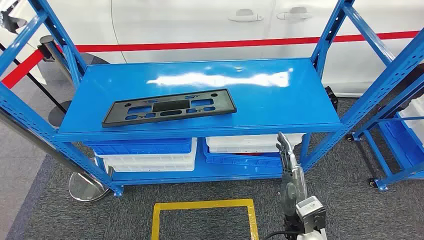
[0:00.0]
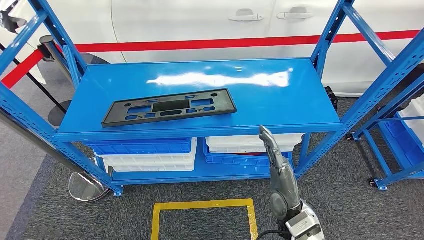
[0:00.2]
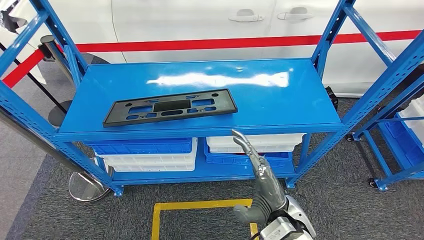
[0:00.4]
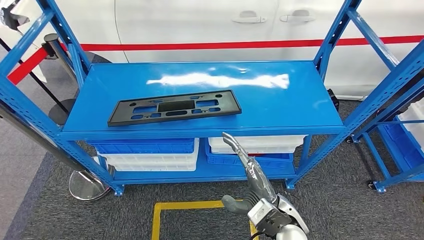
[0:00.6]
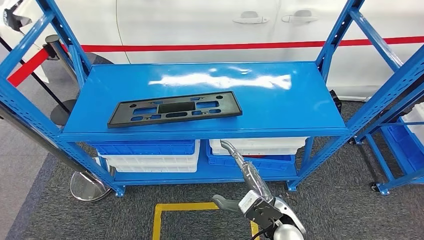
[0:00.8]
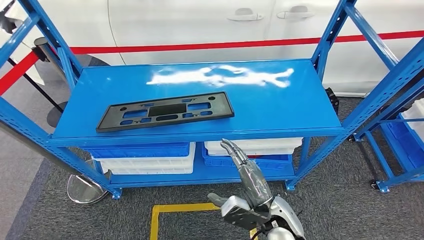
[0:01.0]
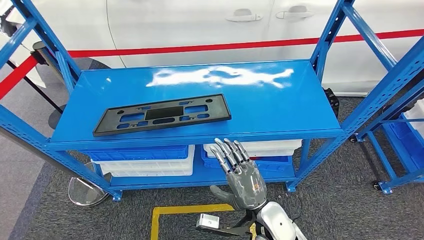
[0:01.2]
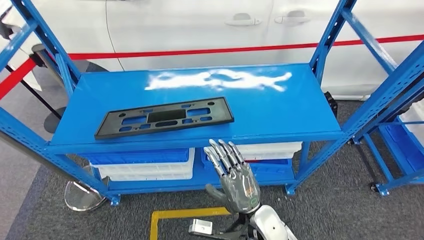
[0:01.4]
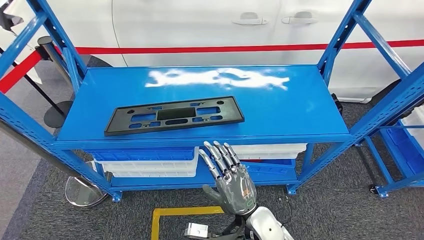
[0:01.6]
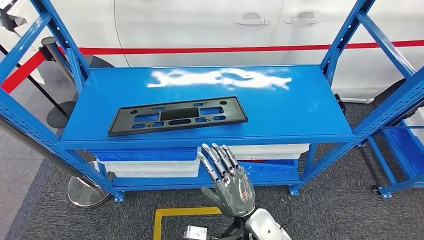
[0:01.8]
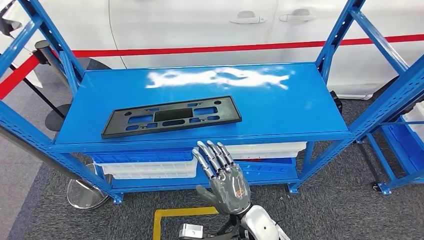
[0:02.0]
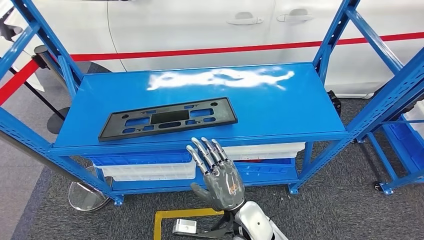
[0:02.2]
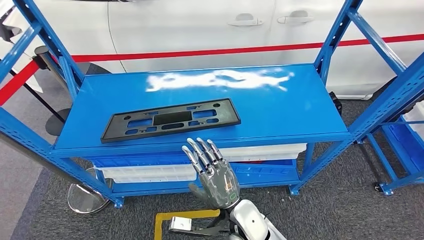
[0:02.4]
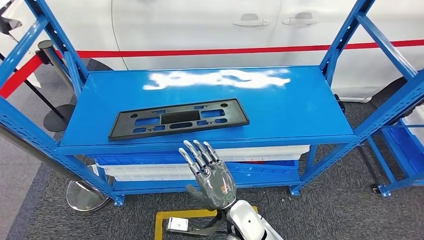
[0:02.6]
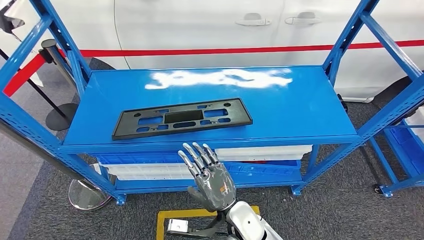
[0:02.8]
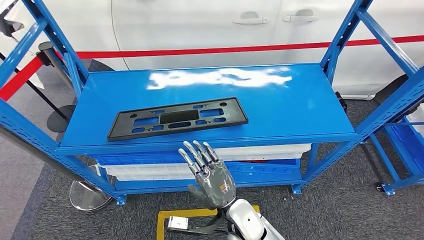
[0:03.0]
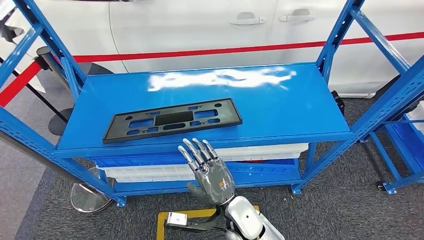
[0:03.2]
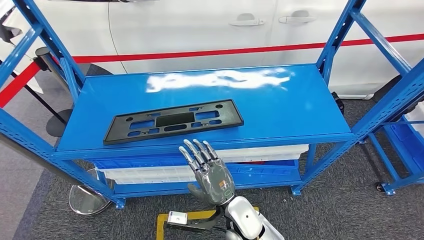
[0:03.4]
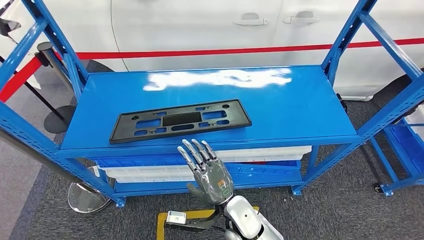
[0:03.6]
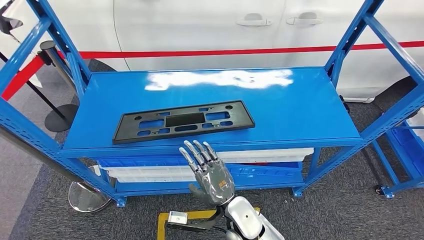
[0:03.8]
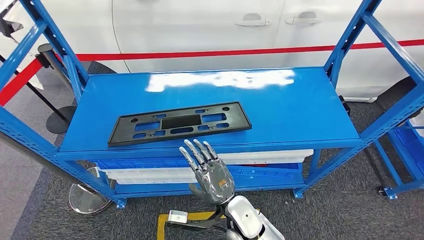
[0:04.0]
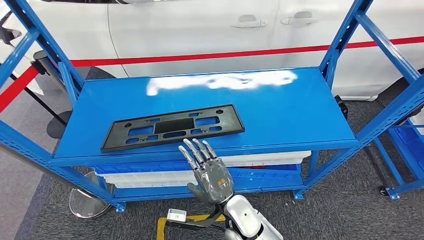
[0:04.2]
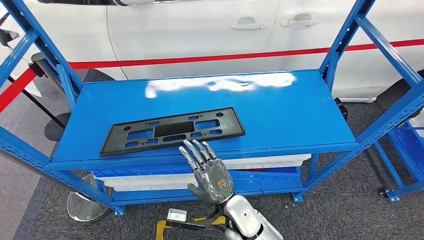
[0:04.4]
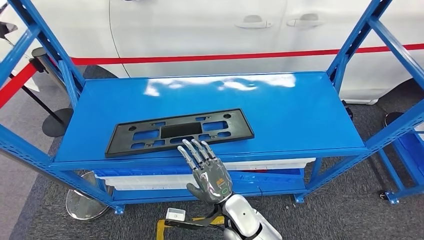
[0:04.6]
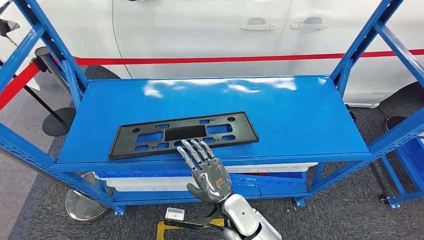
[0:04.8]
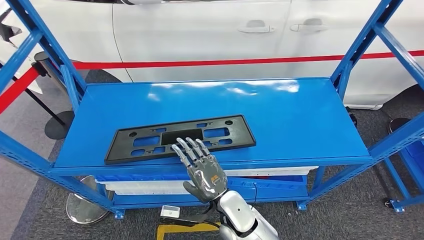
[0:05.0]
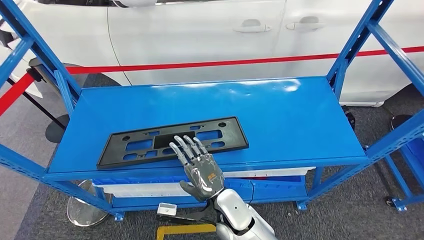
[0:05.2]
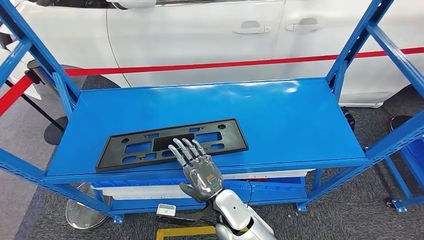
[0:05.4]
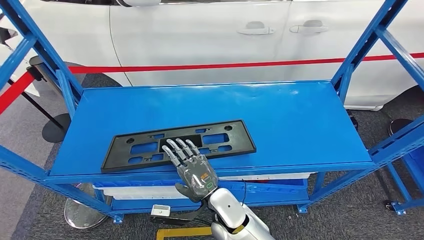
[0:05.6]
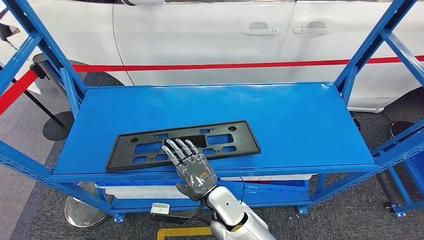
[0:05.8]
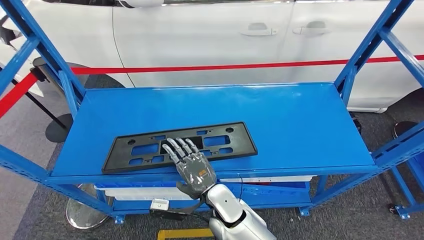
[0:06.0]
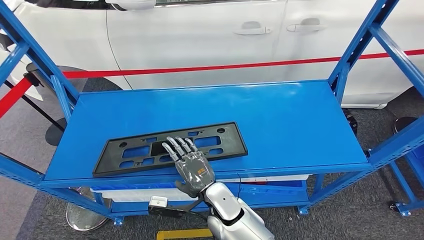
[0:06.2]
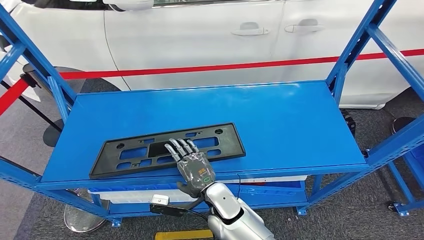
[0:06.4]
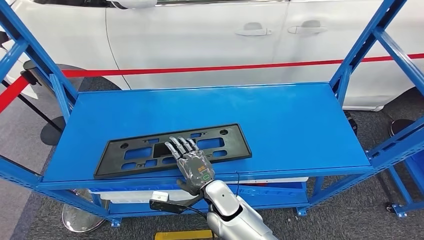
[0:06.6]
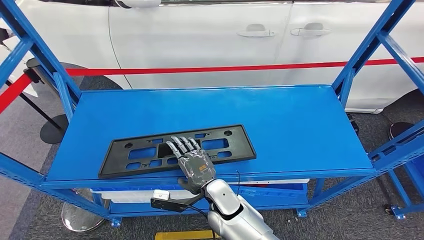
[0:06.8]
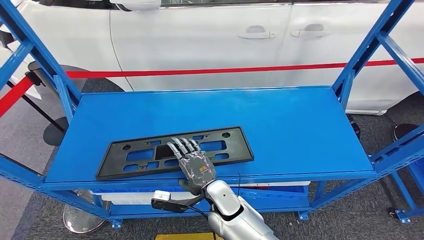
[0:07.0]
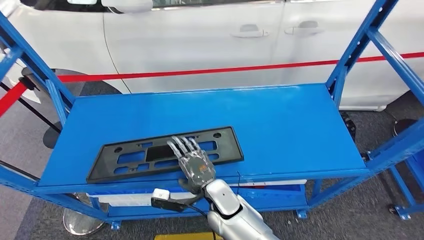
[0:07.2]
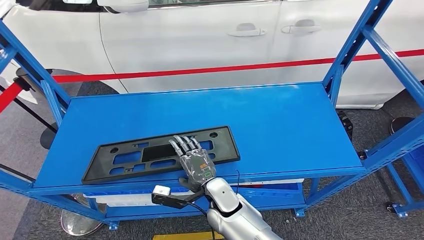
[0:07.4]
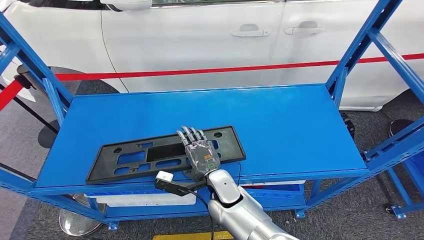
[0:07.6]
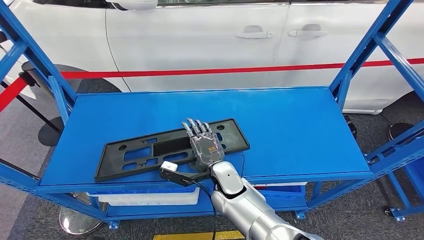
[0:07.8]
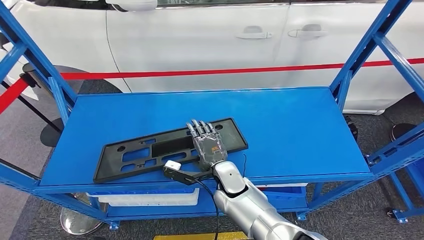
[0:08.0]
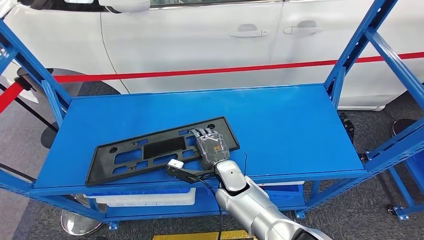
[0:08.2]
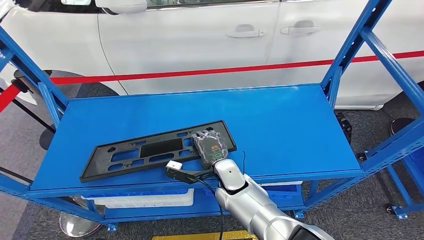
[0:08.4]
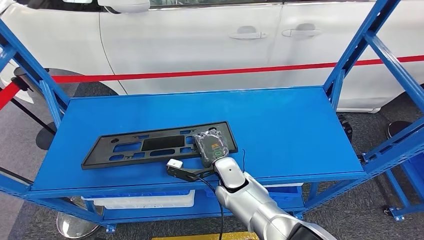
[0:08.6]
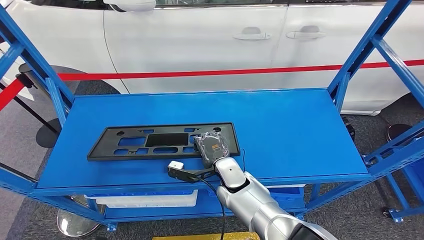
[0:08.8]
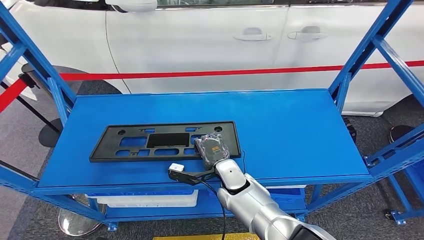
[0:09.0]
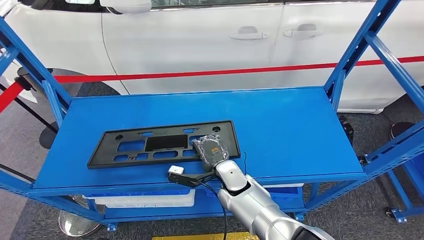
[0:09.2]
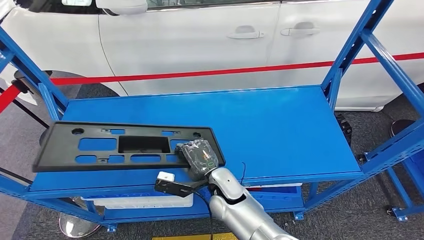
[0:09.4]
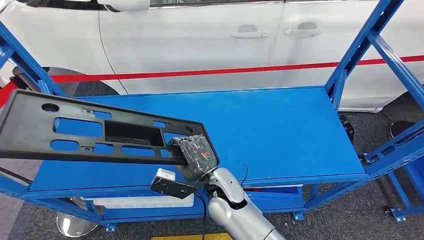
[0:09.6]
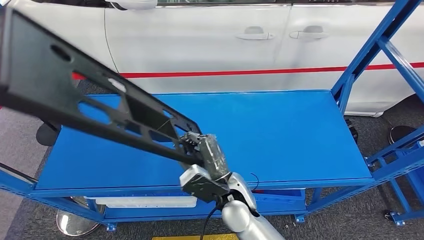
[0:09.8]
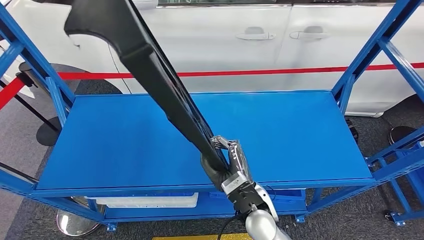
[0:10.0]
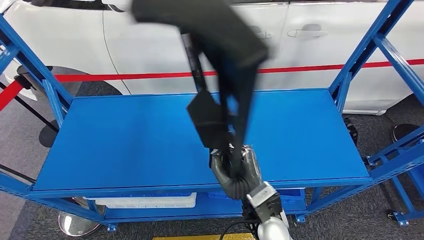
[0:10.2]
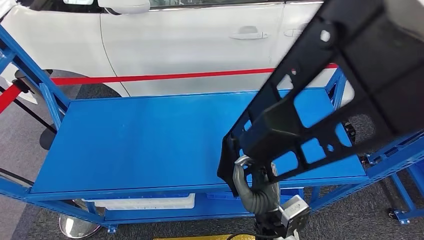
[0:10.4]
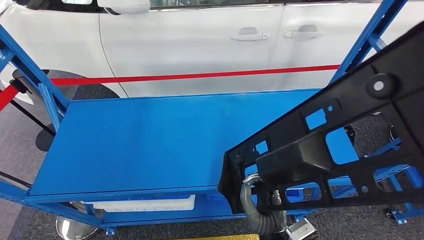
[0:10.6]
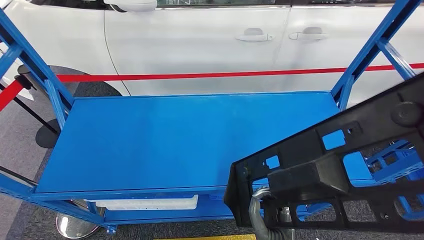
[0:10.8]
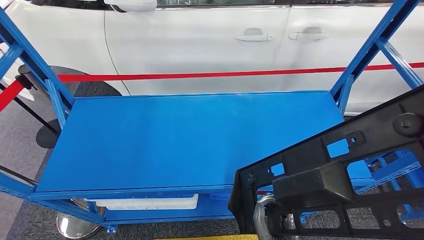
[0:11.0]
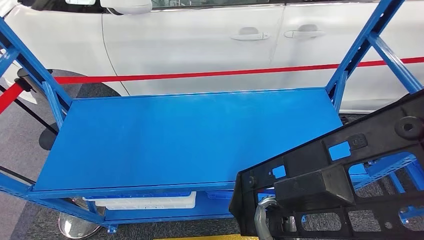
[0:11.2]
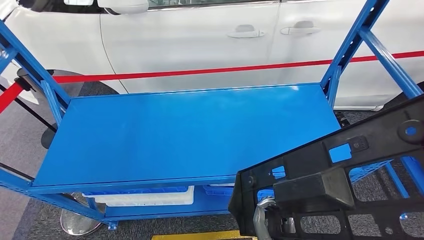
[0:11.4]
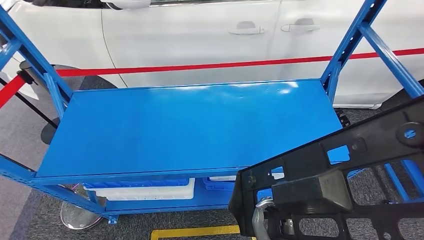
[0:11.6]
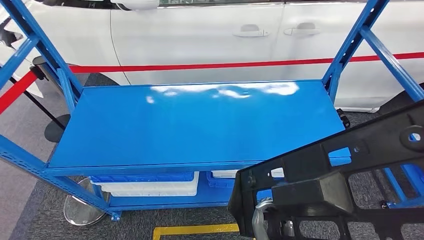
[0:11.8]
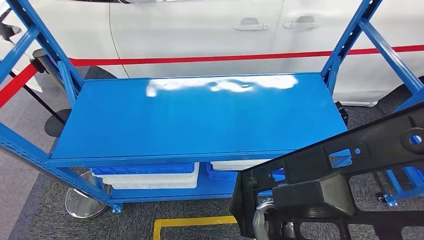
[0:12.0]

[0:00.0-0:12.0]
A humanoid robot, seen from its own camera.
Step, 0:00.0 to 0:10.8: Pick up the large material from the shelf.

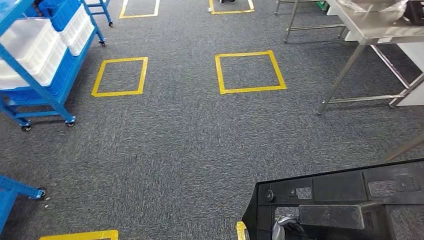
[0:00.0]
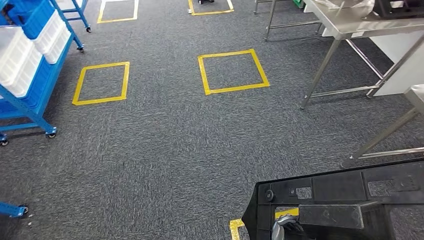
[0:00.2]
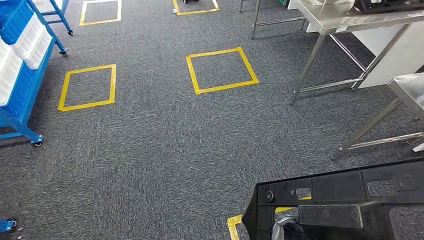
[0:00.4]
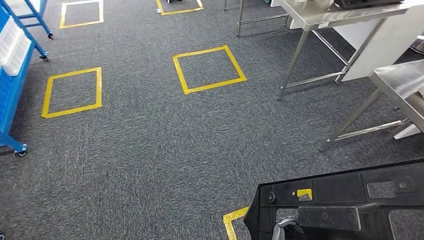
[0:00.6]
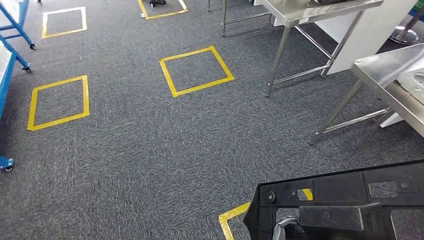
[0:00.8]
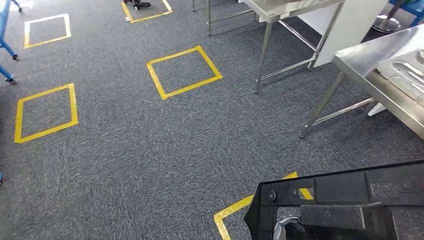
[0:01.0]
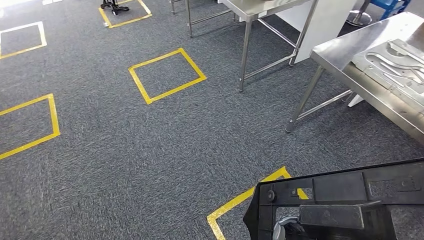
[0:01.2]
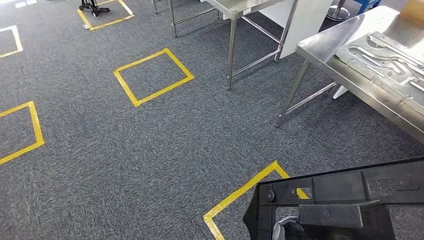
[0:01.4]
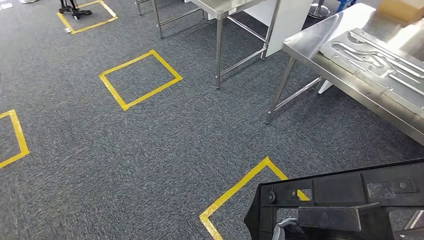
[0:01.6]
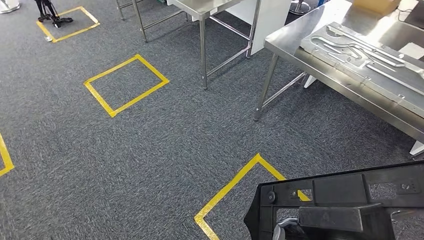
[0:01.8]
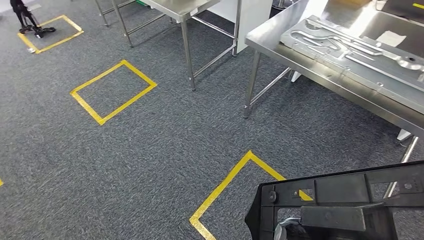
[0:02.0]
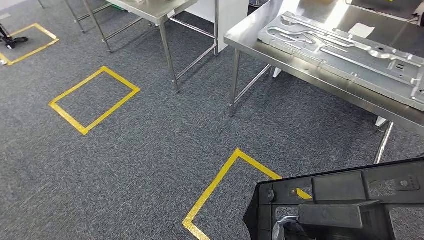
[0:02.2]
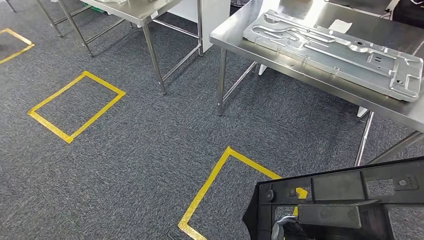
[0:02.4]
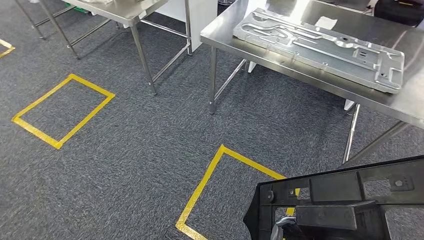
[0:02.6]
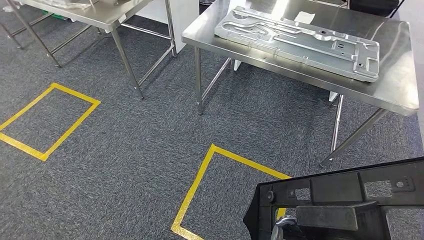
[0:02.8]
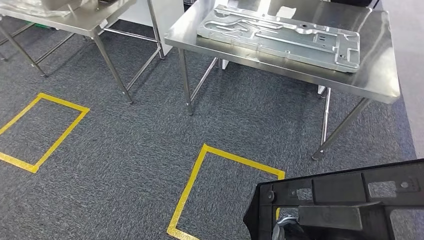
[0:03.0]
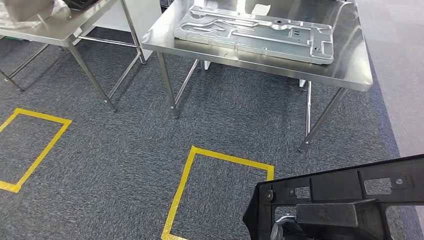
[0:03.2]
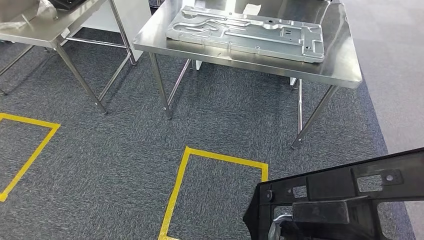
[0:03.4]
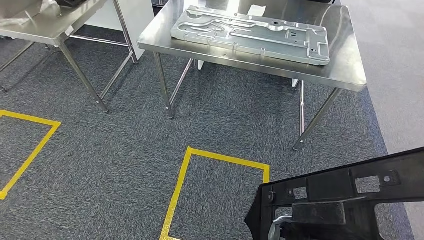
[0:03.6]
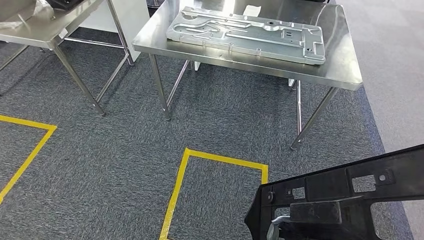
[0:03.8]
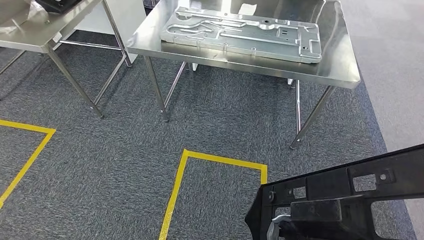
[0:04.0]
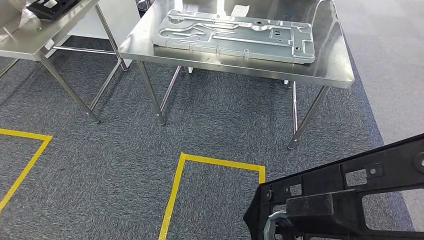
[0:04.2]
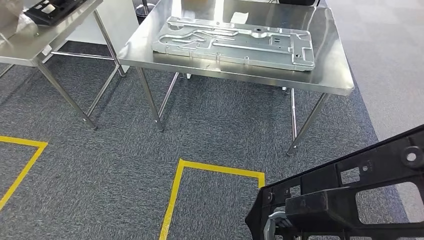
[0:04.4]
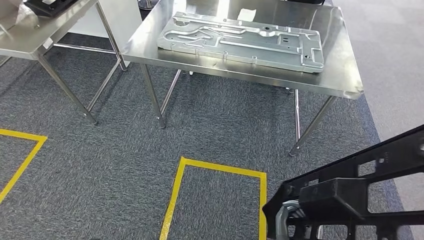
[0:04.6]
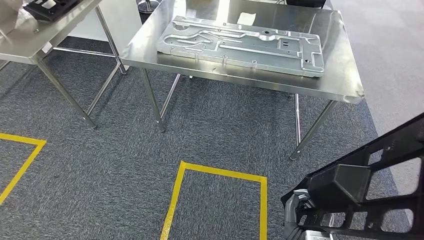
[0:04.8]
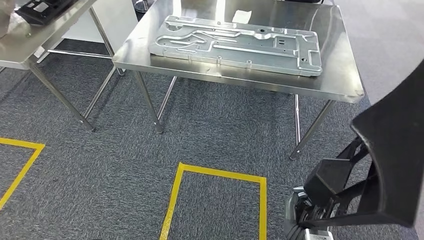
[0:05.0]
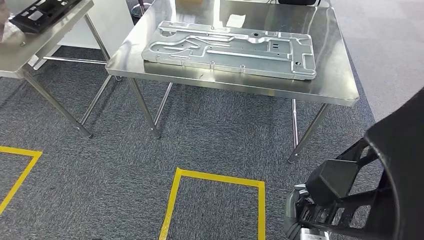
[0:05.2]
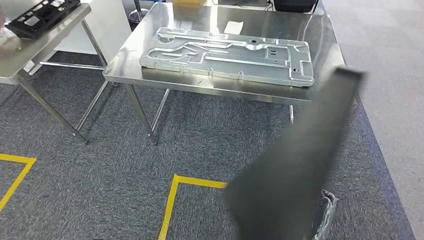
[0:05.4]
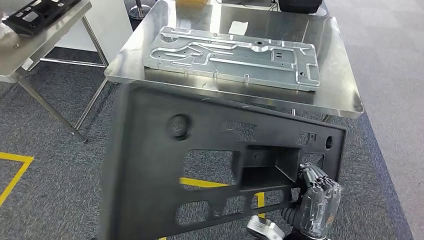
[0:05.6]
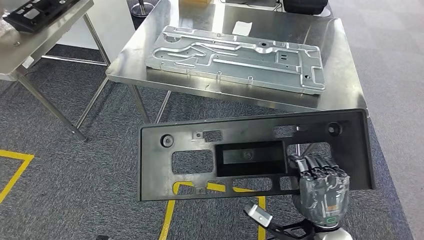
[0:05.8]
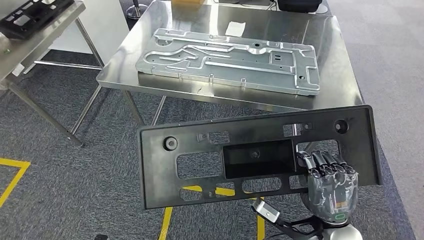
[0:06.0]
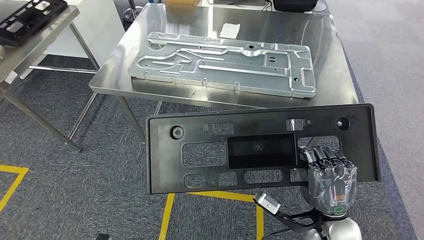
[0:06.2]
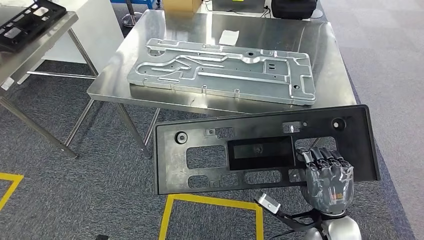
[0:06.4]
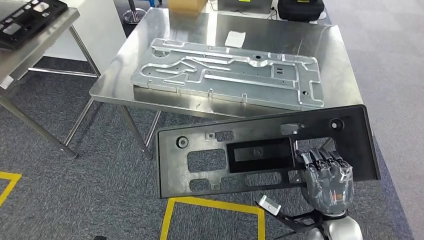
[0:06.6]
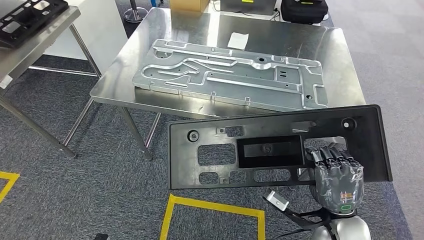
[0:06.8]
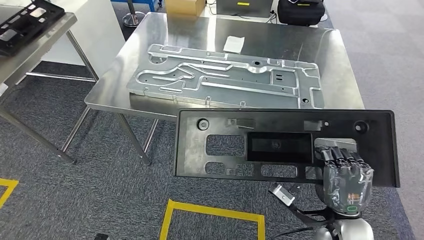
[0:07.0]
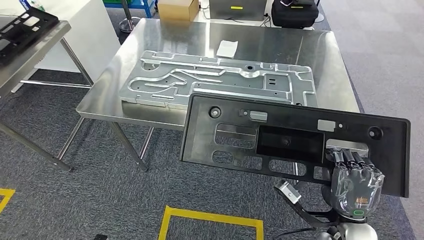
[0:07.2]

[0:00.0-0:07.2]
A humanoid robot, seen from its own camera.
Step, 0:00.0 to 0:04.2: Move the large material to the front of the workbench.
